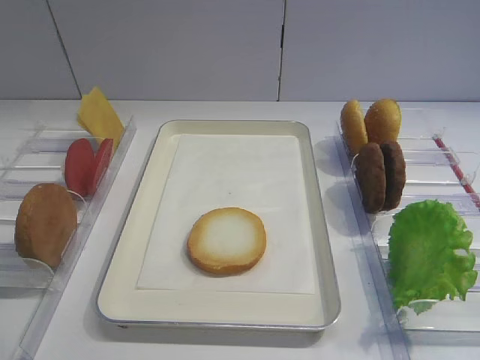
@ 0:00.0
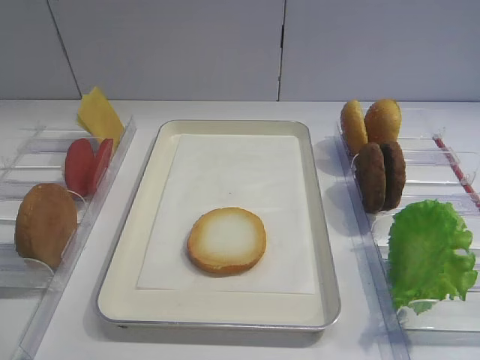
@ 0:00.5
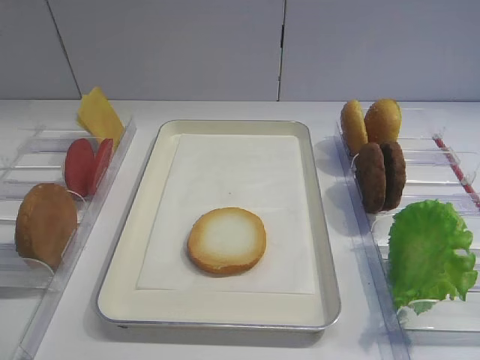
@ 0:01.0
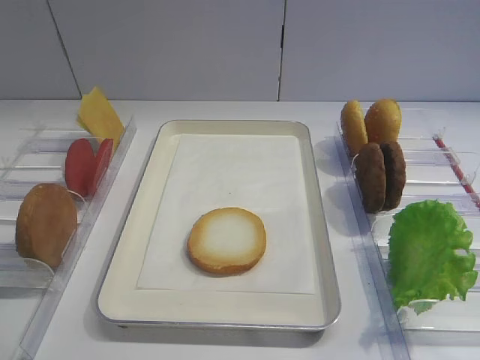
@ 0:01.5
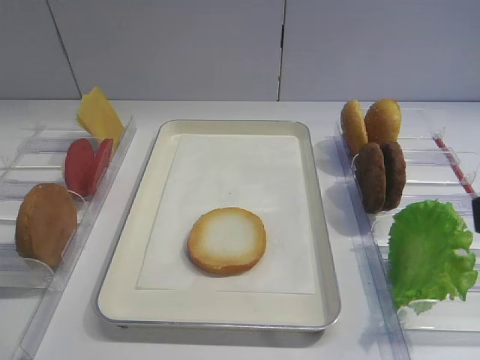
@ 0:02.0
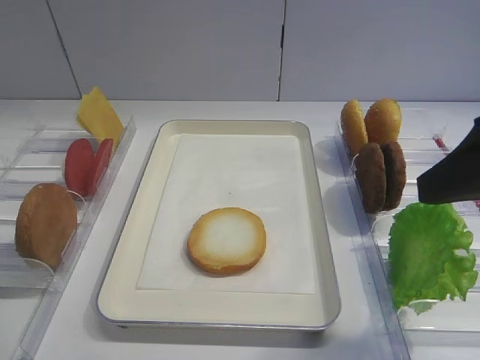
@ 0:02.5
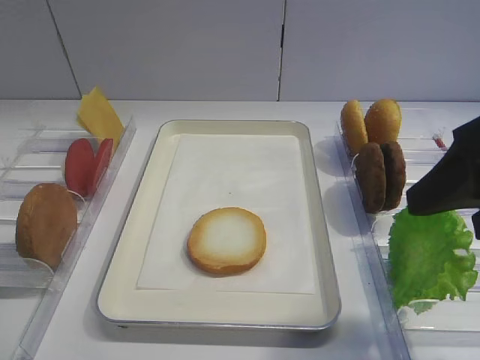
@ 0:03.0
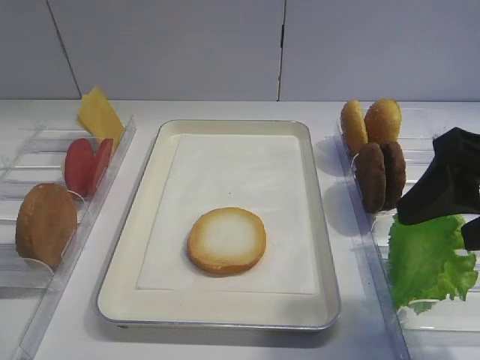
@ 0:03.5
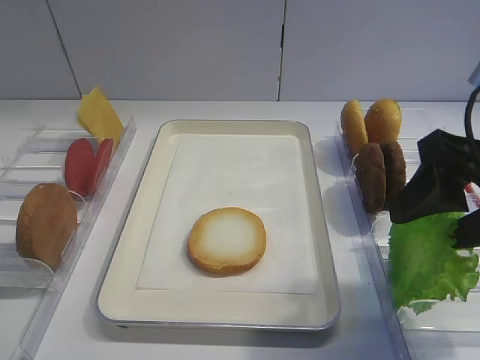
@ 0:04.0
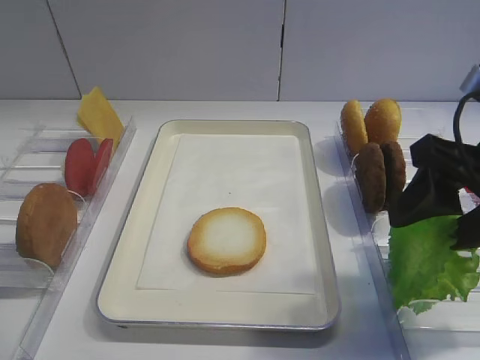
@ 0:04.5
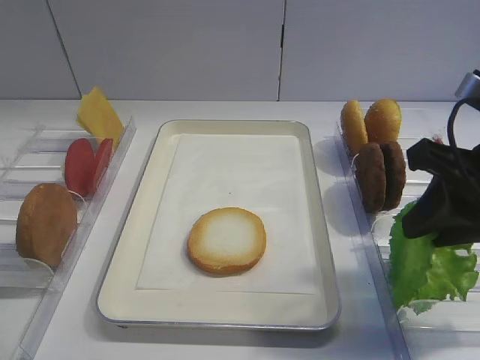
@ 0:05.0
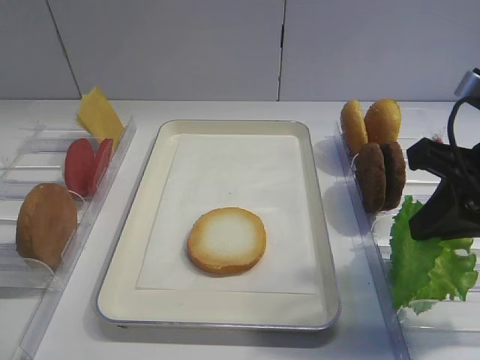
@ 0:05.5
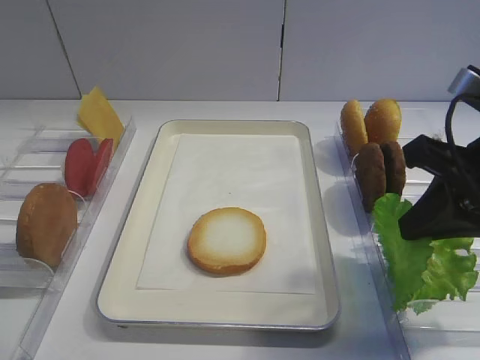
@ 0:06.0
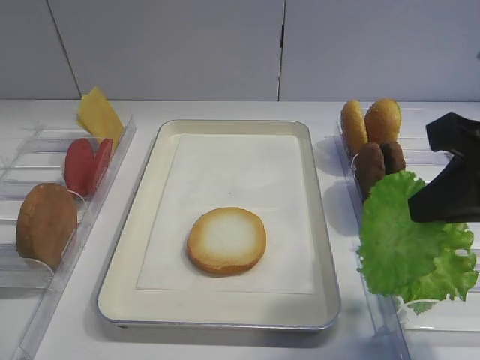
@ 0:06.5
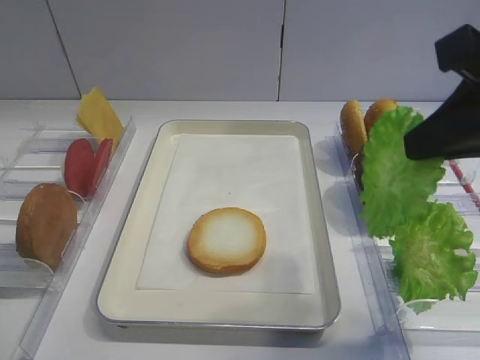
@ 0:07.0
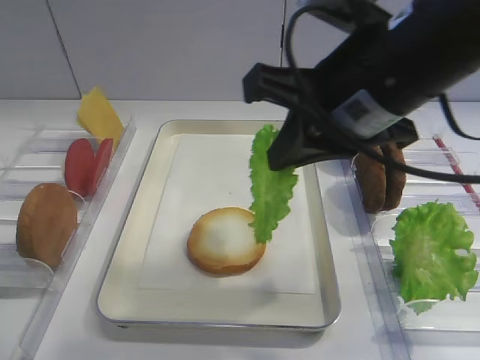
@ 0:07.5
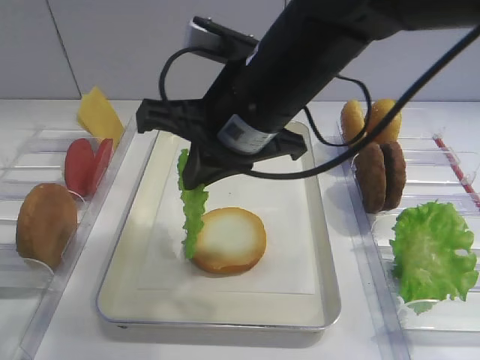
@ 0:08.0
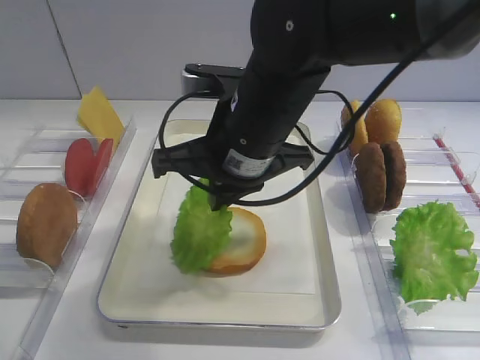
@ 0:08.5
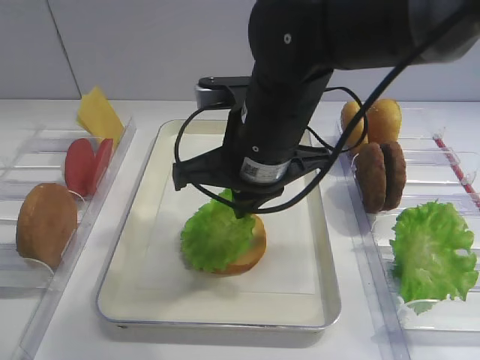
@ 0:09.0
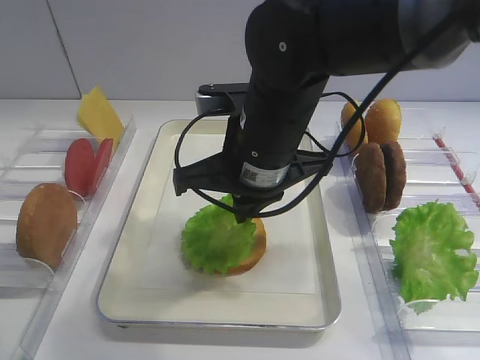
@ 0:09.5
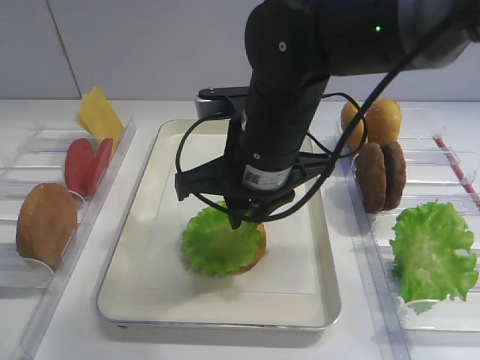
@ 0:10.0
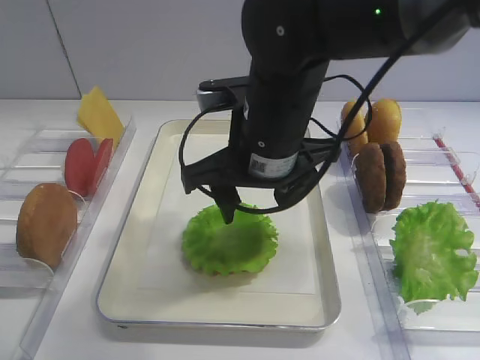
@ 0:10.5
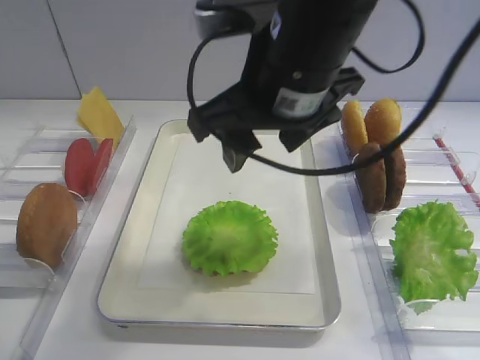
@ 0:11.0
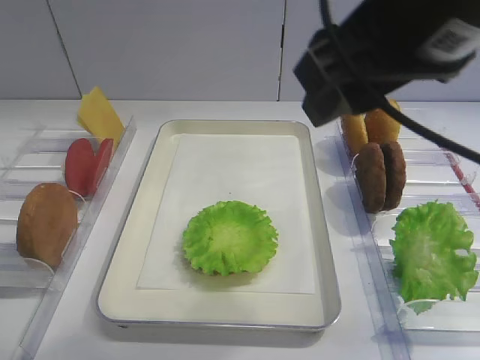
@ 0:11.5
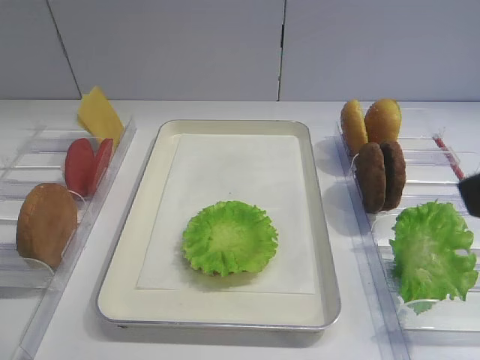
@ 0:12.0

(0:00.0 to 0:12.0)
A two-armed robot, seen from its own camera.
Step, 0:00.0 - 0:06.5: Pick up the lettuce leaf with the right gripper.
Step, 0:07.0 - 0:11.0: Place the lettuce leaf on the bread slice with the right gripper.
0:02.0 - 0:04.0: The right gripper goes approximately 10 cm forward and downward.
0:04.0 - 0:06.0: The right gripper closes its fingers.
0:06.0 - 0:08.0: The right gripper is displaced to the left by about 20 cm.
0:08.0 - 0:10.0: The right gripper travels downward by approximately 5 cm.
0:10.0 - 0:12.0: The right gripper goes approximately 30 cm to the right, backward and upward, and opens.

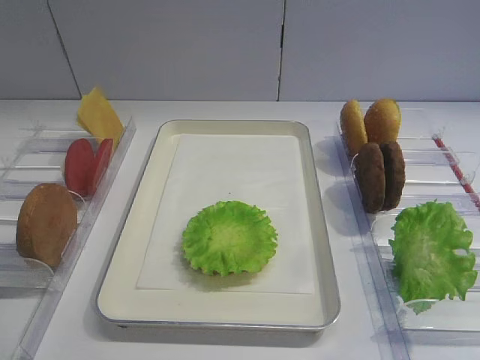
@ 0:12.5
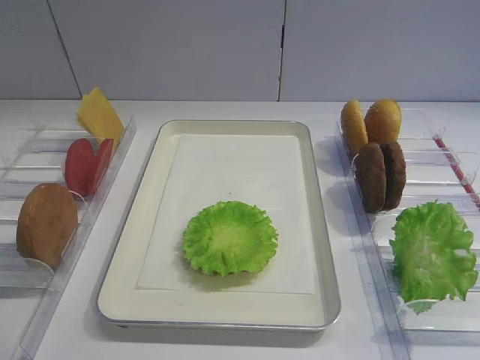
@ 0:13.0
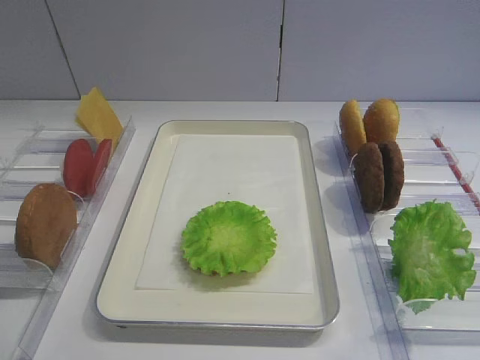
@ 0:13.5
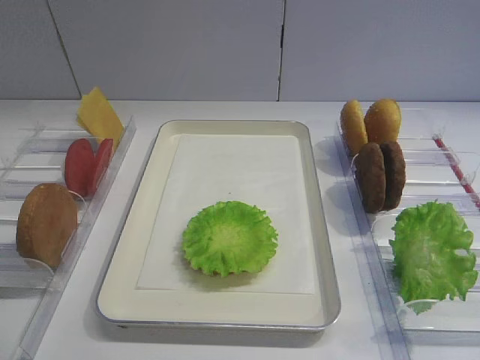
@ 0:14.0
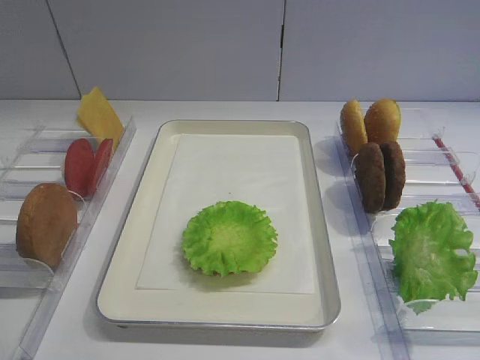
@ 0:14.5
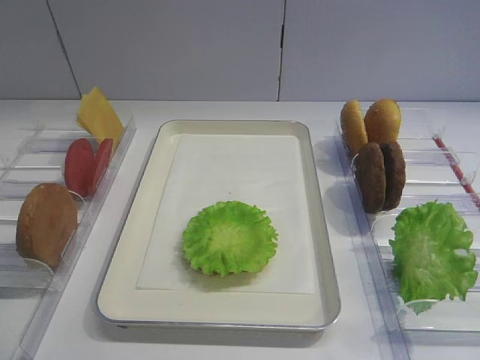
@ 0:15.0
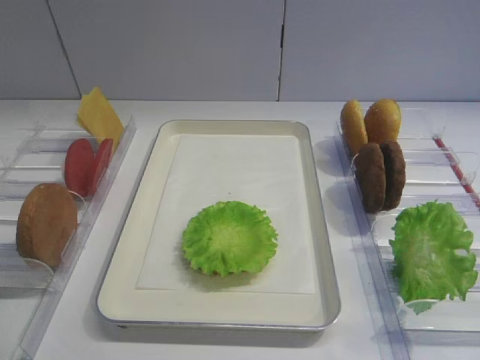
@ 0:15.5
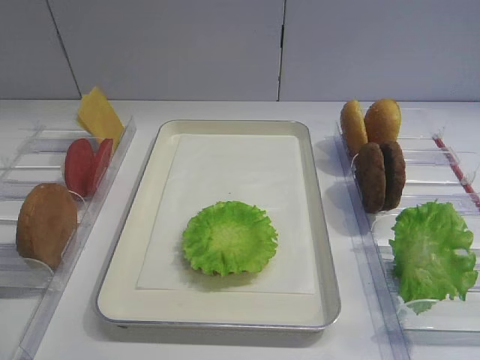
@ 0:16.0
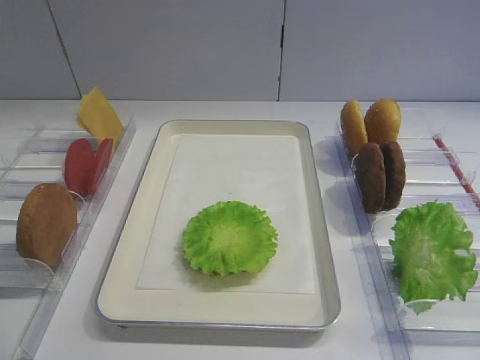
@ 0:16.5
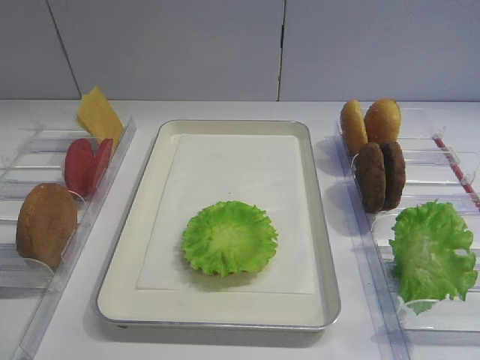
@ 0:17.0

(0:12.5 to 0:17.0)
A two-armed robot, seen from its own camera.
0:14.5 - 0:17.0: Both grippers stay put.

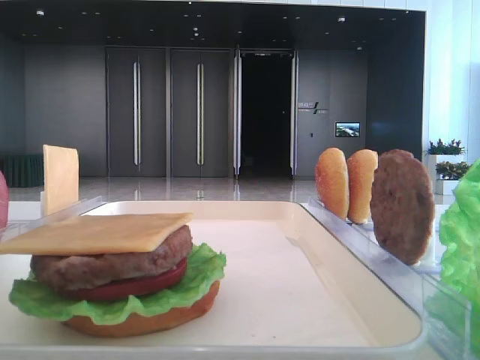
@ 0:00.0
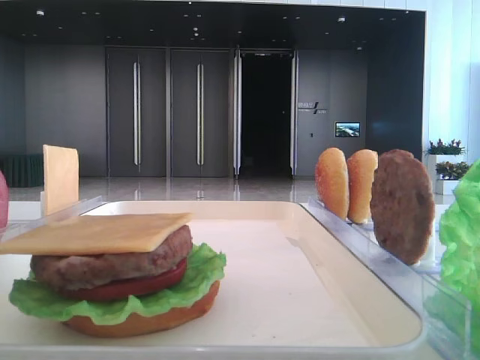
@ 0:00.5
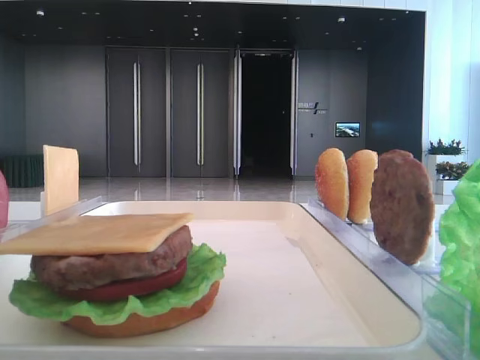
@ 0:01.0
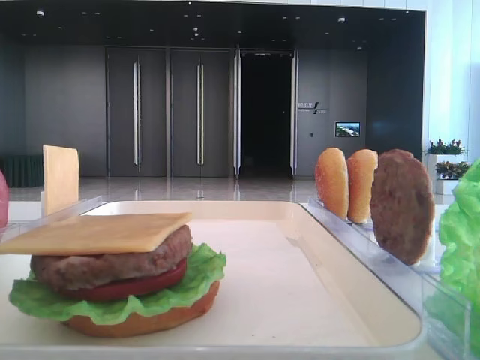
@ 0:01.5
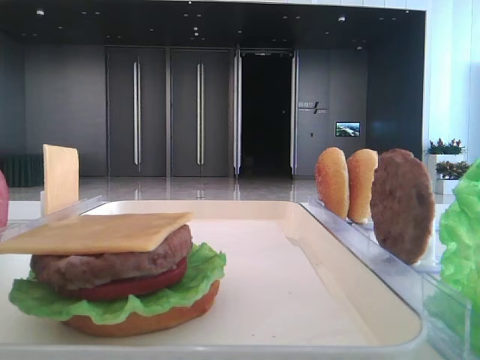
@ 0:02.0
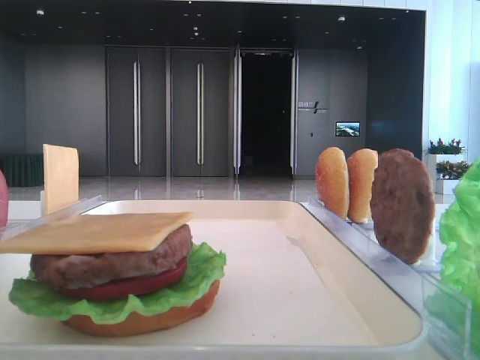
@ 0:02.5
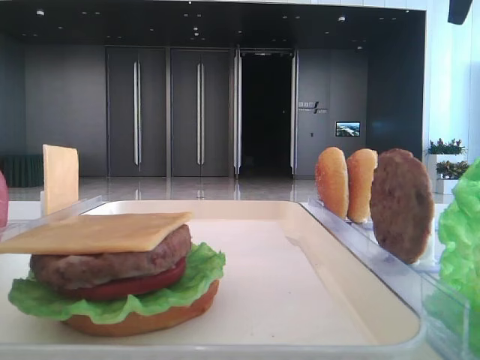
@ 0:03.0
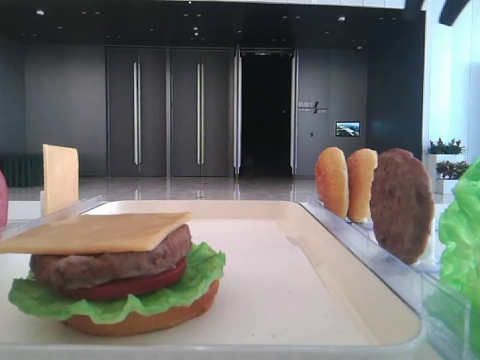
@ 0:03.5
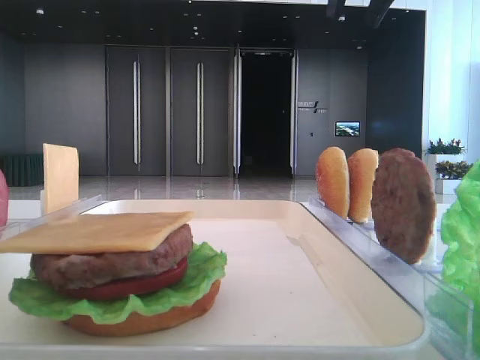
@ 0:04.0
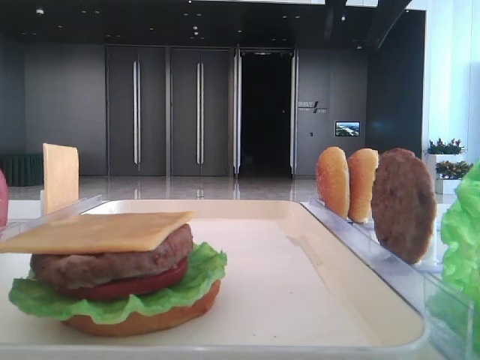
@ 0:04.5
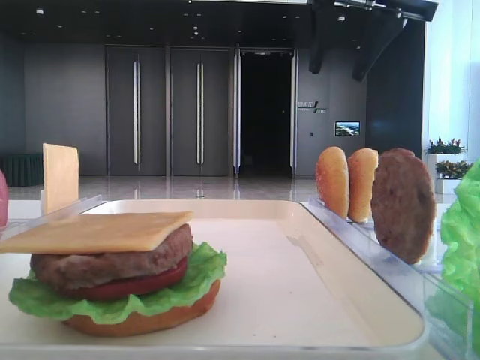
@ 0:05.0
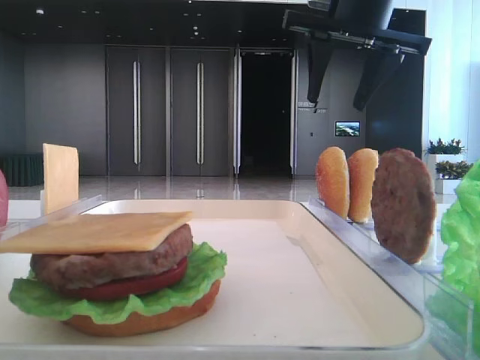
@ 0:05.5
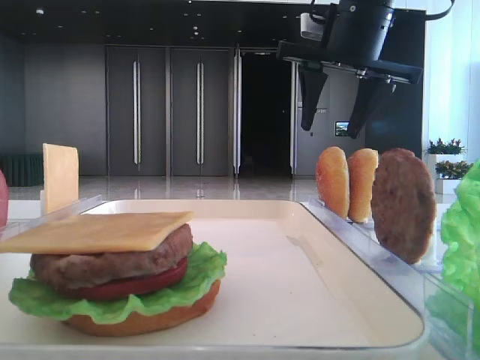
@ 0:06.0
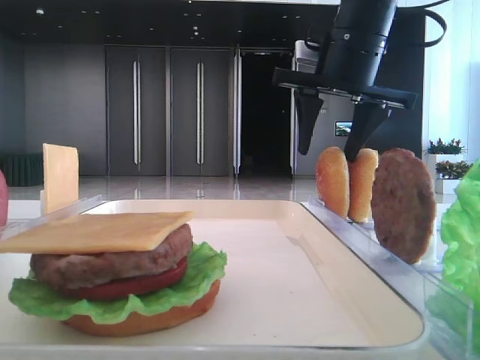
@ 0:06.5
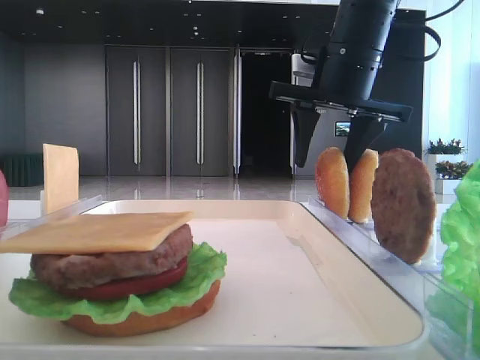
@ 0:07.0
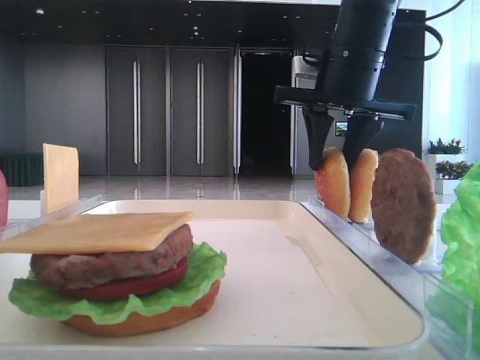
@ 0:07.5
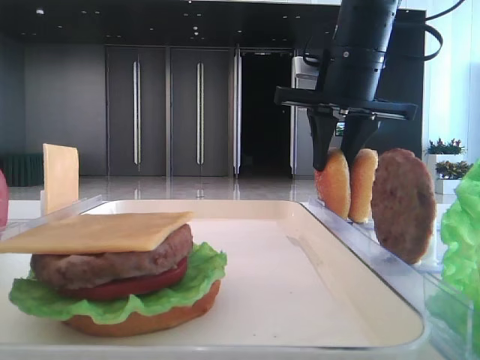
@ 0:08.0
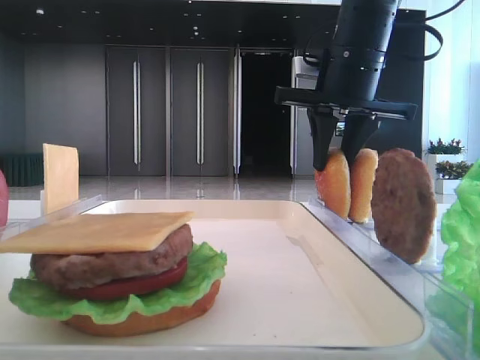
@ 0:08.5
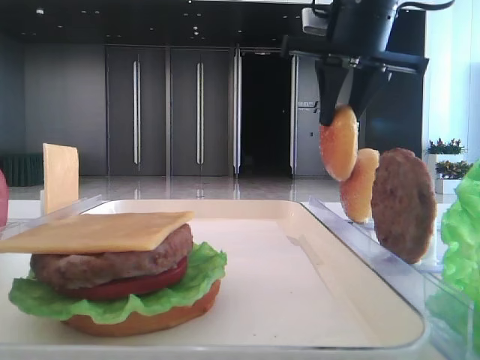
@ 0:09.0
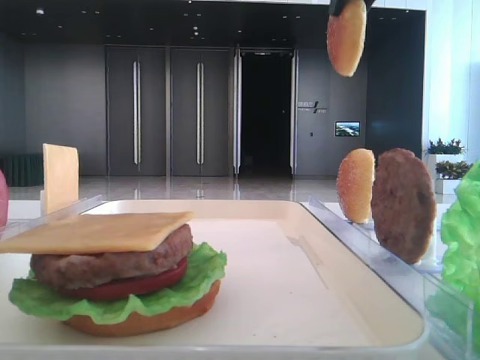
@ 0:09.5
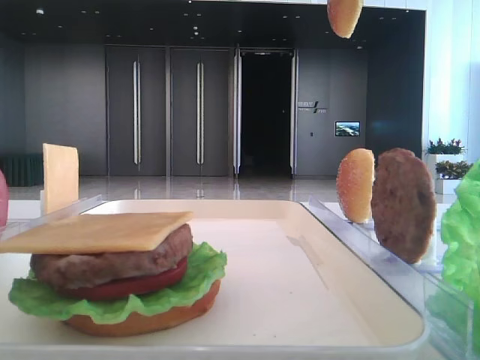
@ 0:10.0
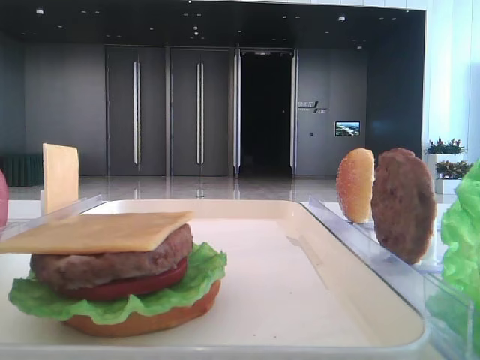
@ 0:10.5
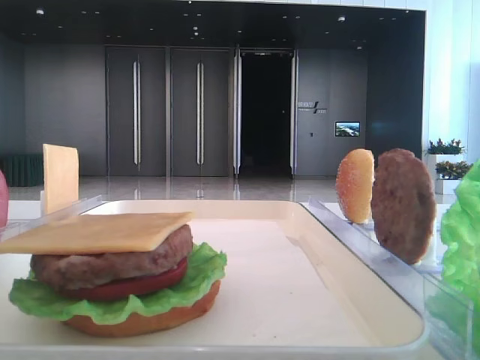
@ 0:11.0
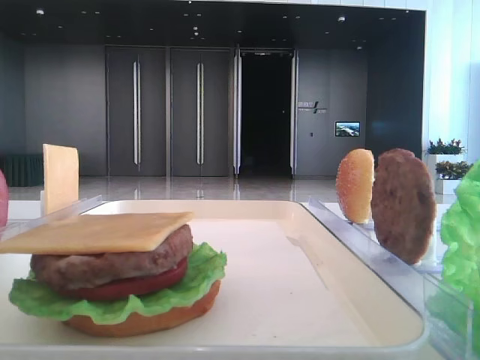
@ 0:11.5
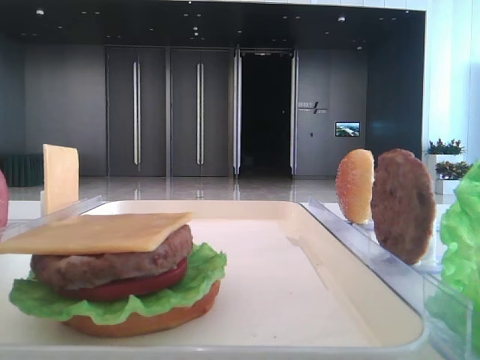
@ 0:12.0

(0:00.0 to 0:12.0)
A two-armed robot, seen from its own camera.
Step, 0:00.0 - 0:08.5: Pick up the top bread slice with the right hand.
0:02.0 - 0:04.0: The right gripper travels forward and to the left by about 20 cm.
0:04.0 - 0:06.0: The right gripper shifts some 10 cm downward and forward, and opens.
0:06.0 - 0:08.0: The right gripper closes.
0:08.0 - 0:10.0: The right gripper travels upward by about 20 cm.
0:10.0 - 0:12.0: The right gripper is displaced backward by some 25 cm.
